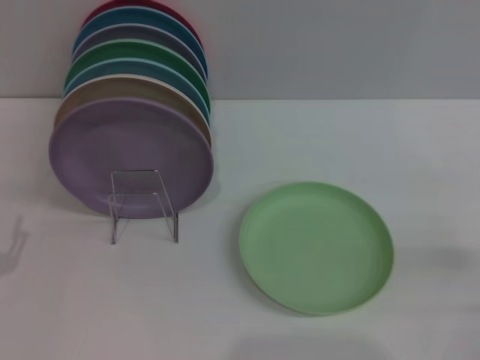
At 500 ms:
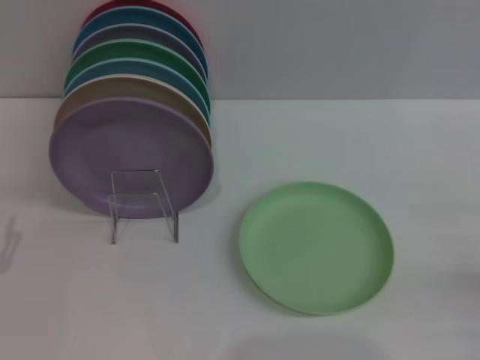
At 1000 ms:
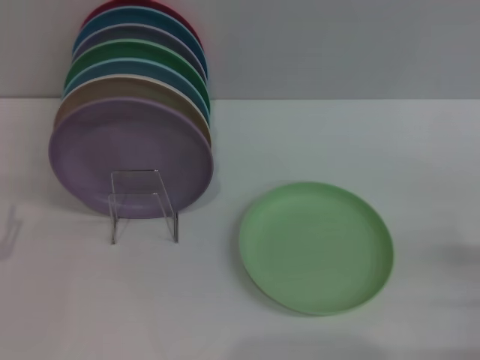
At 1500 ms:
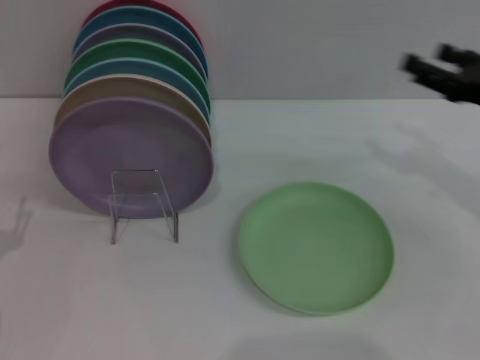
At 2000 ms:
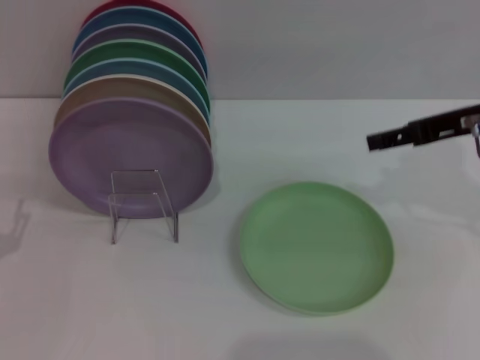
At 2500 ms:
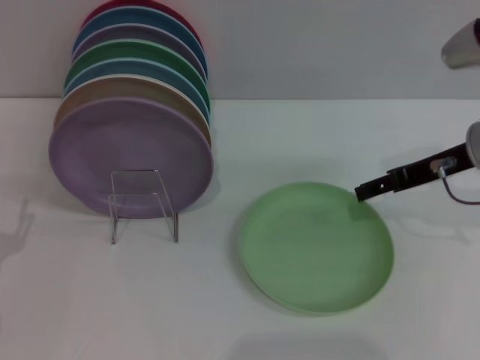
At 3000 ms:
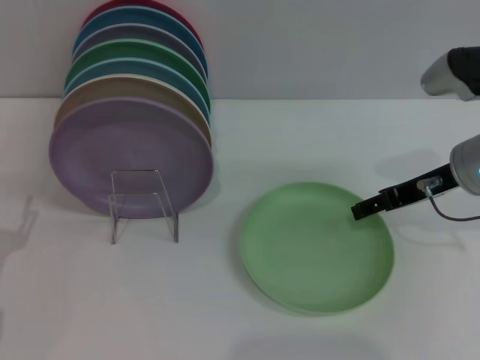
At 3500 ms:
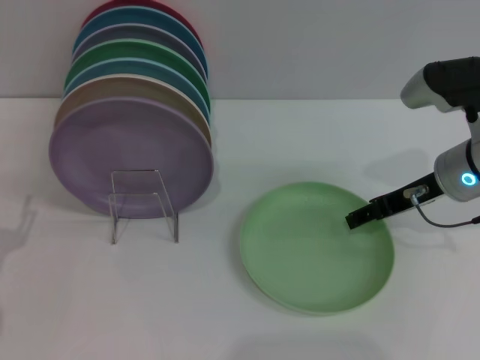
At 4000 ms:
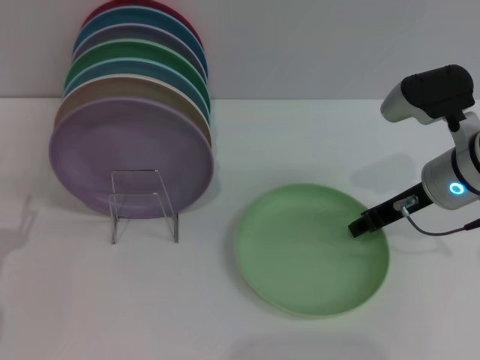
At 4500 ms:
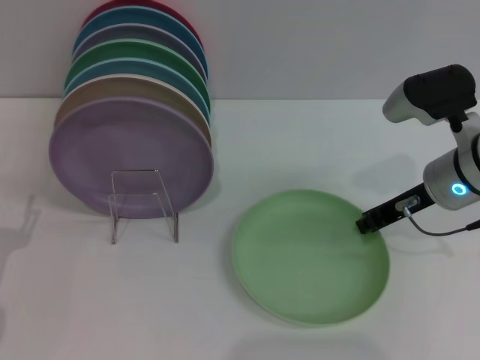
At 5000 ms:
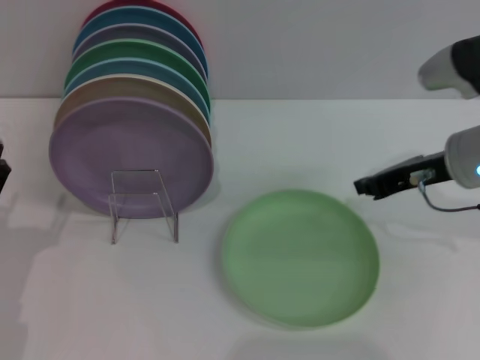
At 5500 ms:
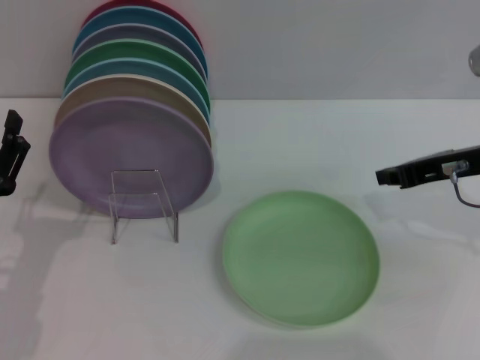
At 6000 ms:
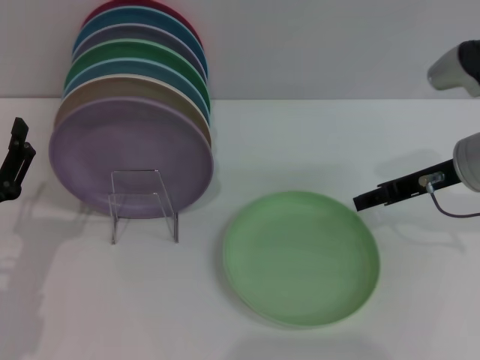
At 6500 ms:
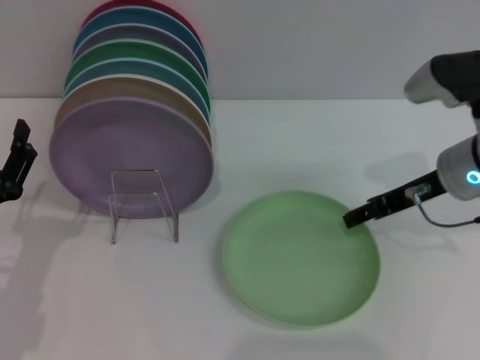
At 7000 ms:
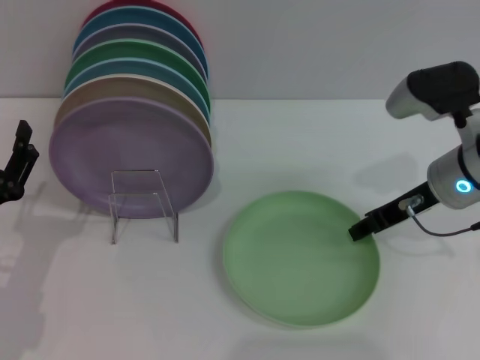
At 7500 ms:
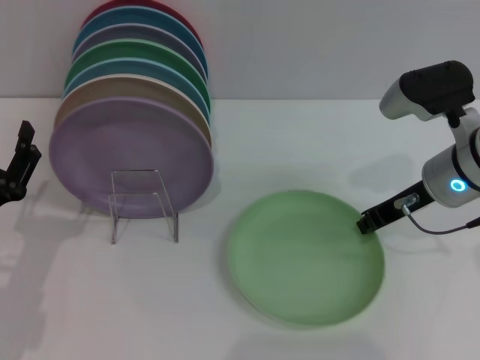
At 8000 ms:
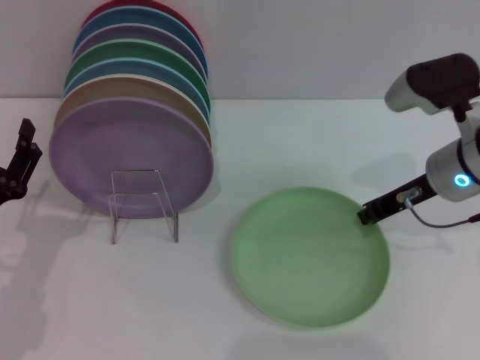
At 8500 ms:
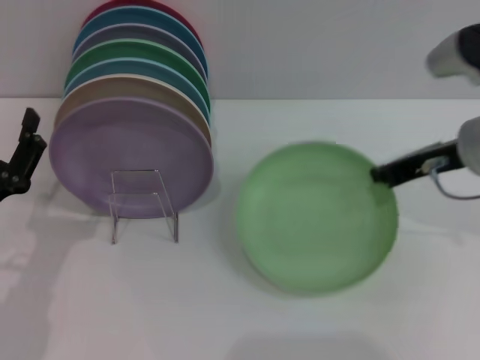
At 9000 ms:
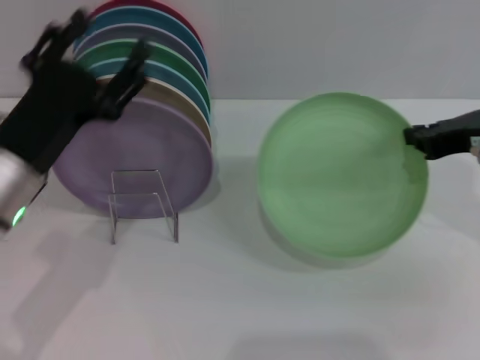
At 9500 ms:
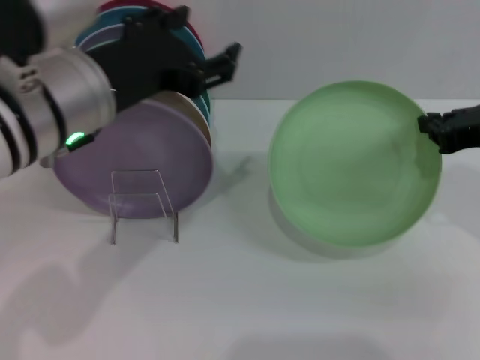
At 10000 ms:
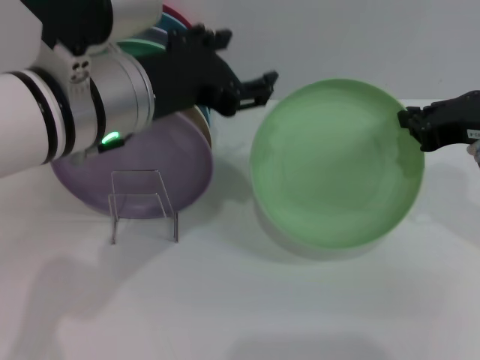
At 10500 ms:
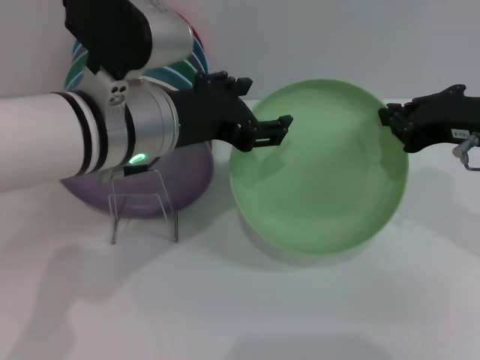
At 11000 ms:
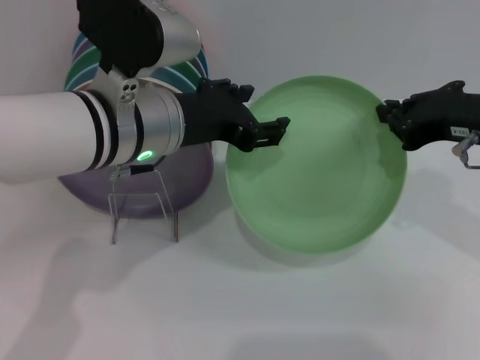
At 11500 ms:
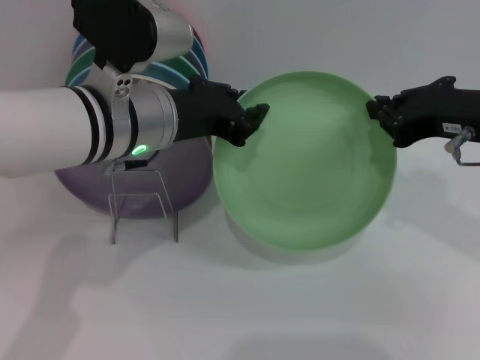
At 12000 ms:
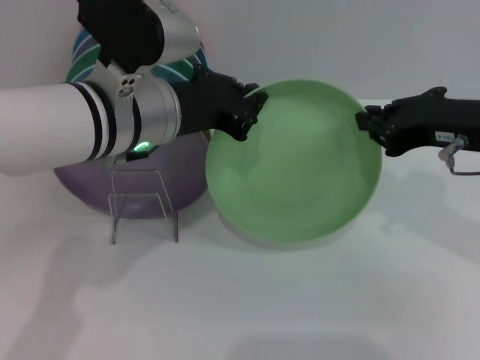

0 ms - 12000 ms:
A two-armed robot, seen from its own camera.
Task of the whole recording: Grip the plate with one hand, pass it to the other, then set it on the shelf.
Step, 0 ms - 8500 ms: Pick up the plate with the right gripper.
0 ms - 2000 ms: The right gripper is displaced forward, upward and to the left by some 25 cm.
2000 ms - 4000 ms: The right gripper travels downward by some 10 cm.
4000 ms - 6000 ms: The right gripper closes and opens again.
6000 ms - 8000 ms: The right gripper closes.
8000 ms - 10000 ms: The right gripper heads upward and backward, covering roughly 10 cm. The left gripper shifts about 25 cm upward and to the right.
10000 ms - 12000 ms: The left gripper moves some 5 cm, and closes up.

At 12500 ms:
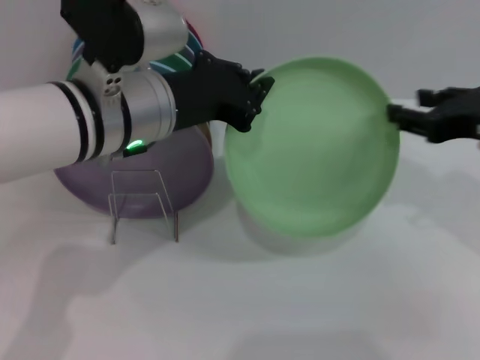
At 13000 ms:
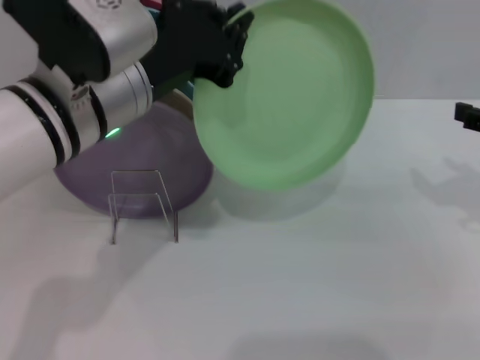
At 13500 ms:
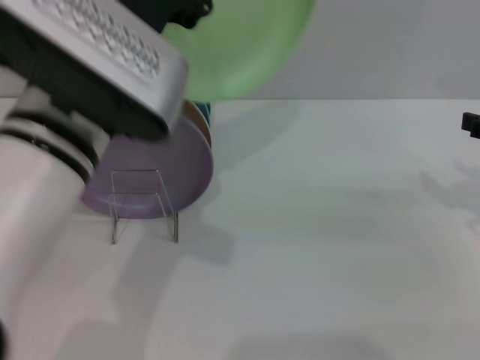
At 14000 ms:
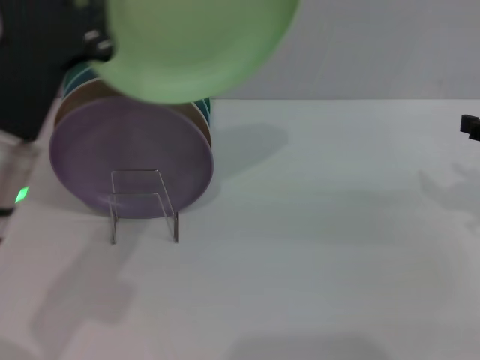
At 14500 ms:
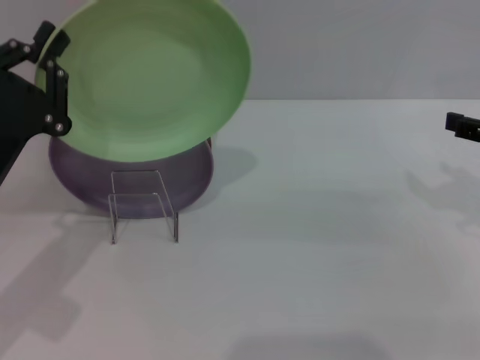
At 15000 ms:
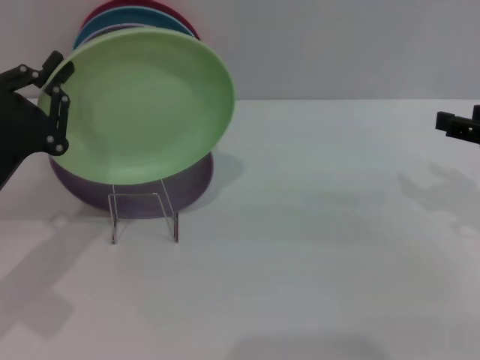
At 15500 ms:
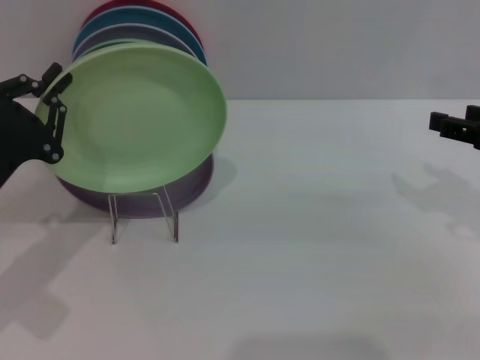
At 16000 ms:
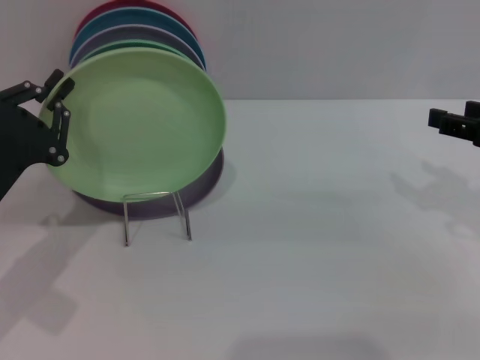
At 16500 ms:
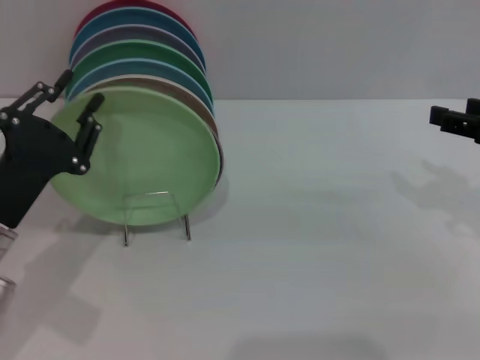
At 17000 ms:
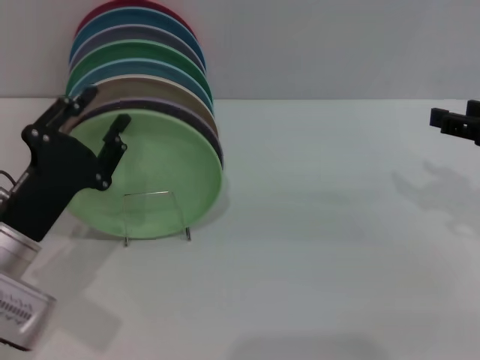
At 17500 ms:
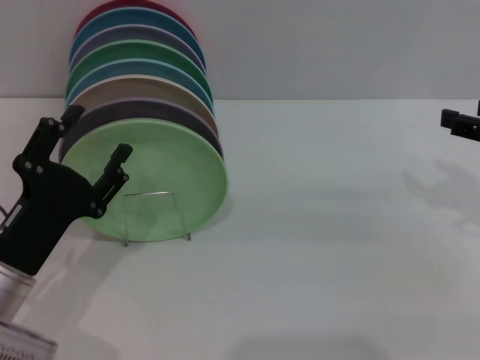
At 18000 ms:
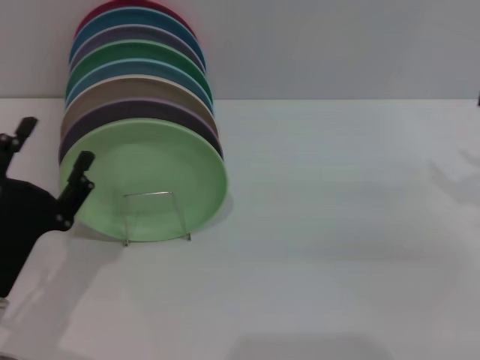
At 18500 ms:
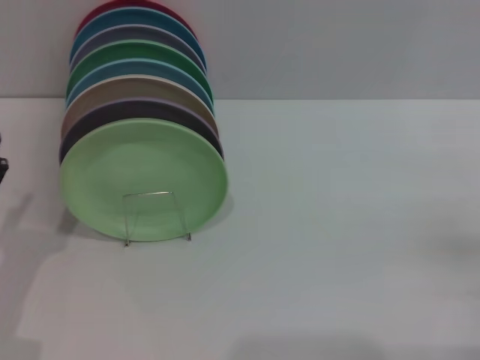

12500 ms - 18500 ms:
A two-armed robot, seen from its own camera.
Task of the whole recording: Grip the plate with one hand, pass it to the other, then set it on the shelf.
Step, 13000 ms - 17500 ms: Place the plate on the shelf with the left gripper.
12500 ms - 14500 ms: The left gripper is displaced to the left, downward and backward by about 20 cm. The right gripper heads to the right, covering about 5 cm, and opens.
16500 ms - 18500 ms: The right gripper heads downward, backward and to the right, covering roughly 20 cm. Meanwhile the left gripper shifts approximately 5 cm backward, and opens its fingers.
